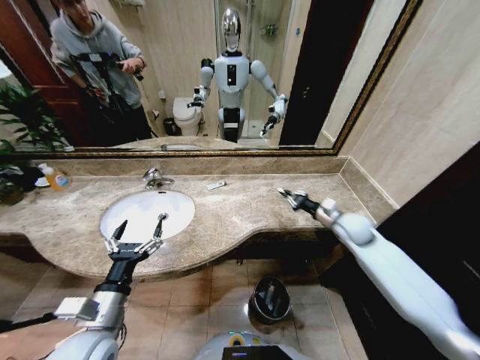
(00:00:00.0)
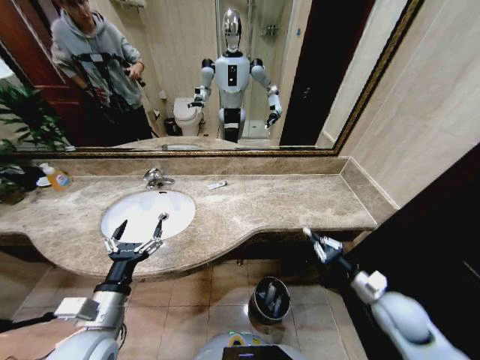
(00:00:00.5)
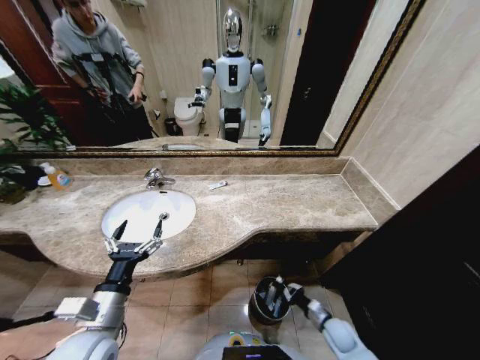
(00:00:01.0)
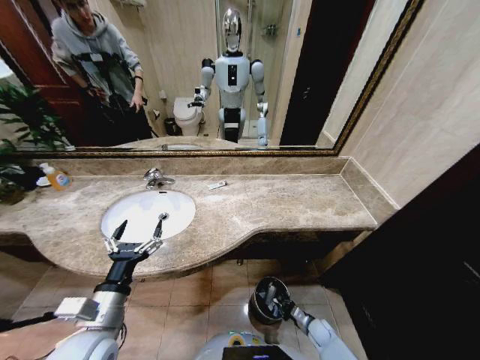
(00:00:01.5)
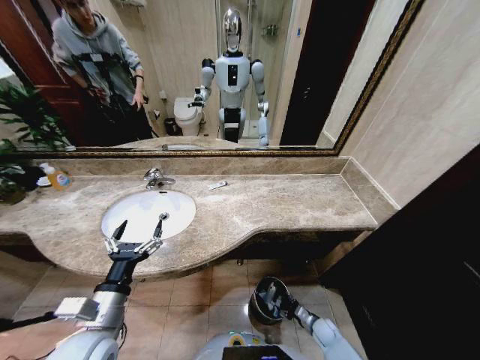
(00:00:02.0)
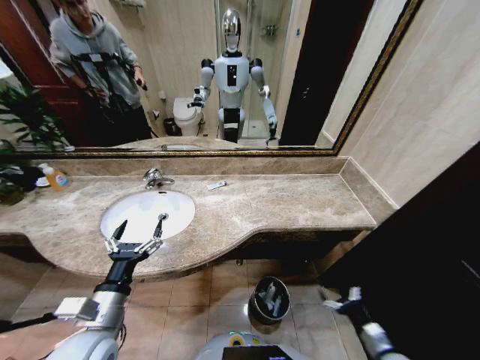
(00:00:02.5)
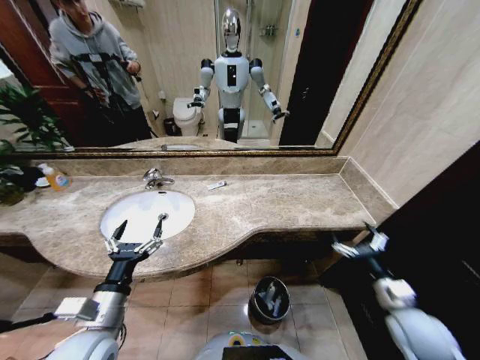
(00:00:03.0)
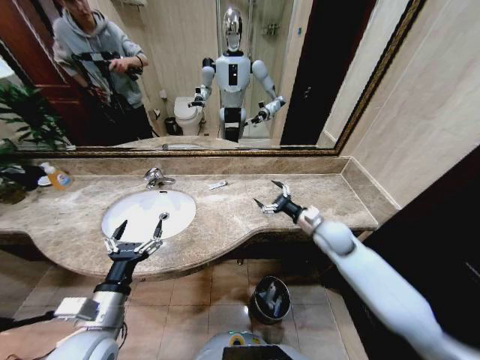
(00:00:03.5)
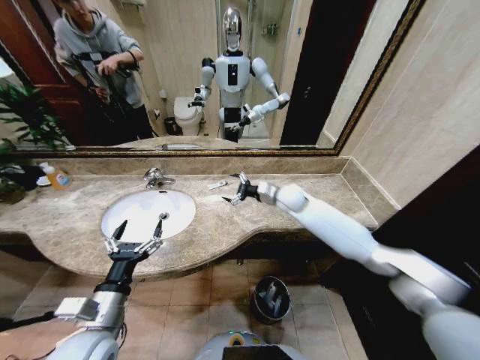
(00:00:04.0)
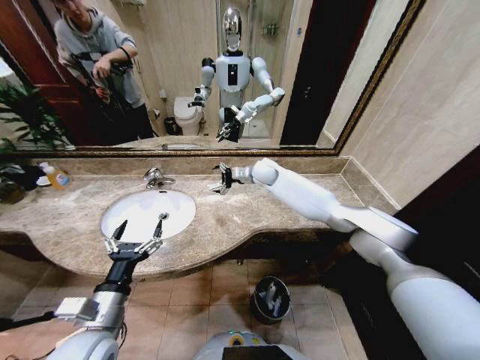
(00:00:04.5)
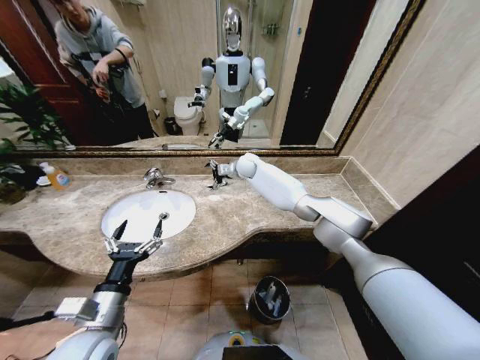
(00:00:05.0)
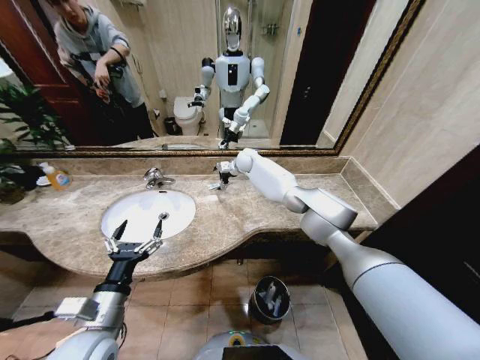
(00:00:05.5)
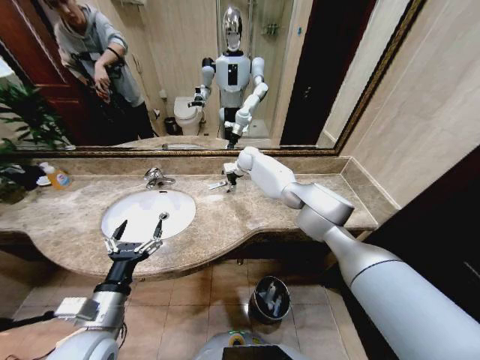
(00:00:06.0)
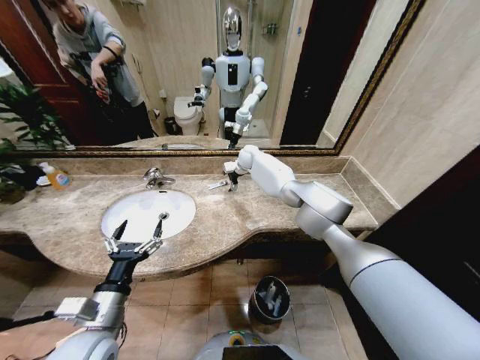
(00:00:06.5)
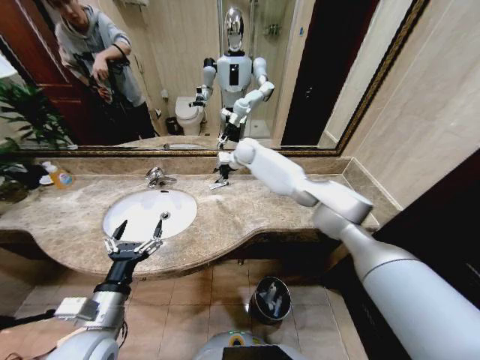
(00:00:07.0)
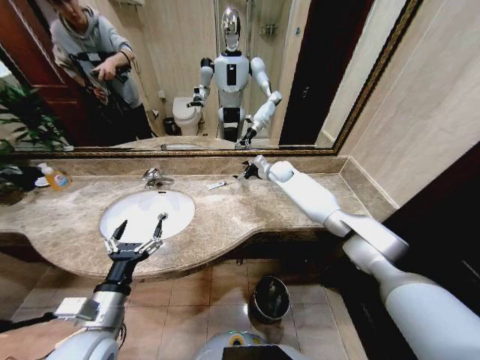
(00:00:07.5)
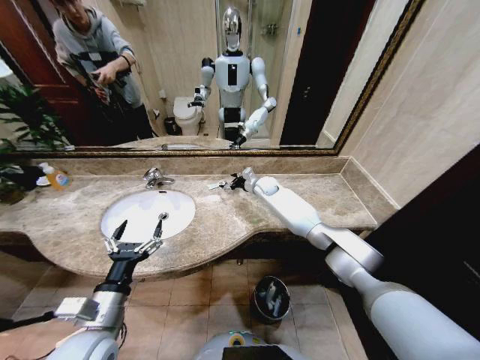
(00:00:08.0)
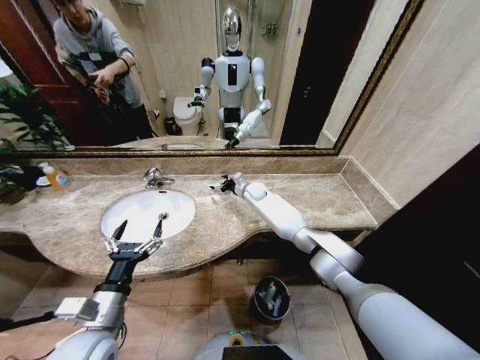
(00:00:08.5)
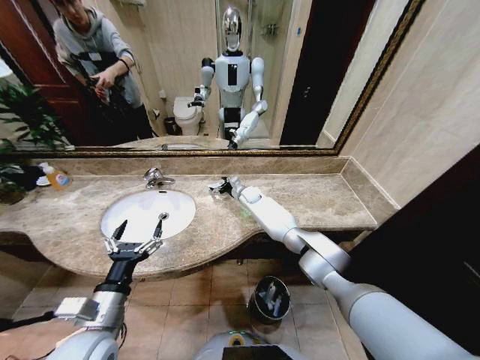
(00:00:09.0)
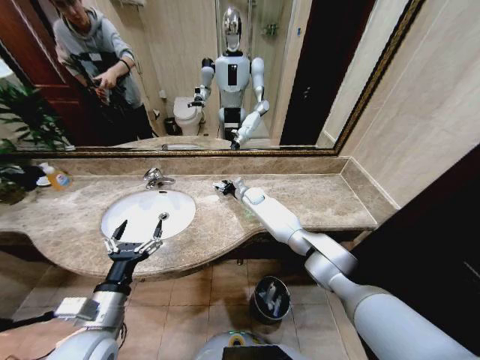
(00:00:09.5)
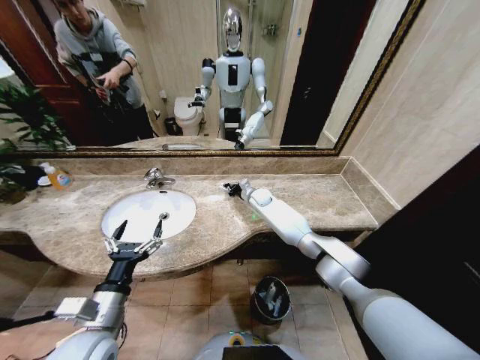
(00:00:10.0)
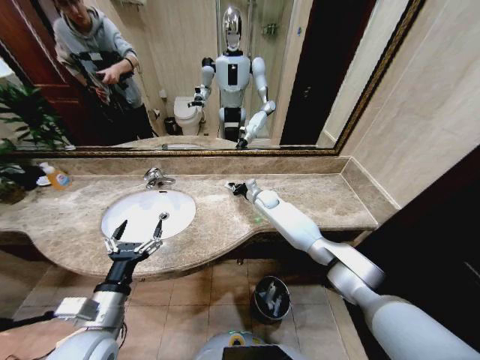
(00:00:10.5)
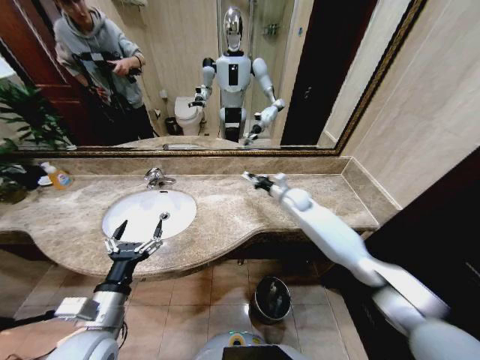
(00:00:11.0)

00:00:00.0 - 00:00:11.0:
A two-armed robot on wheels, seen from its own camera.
Task of the whole recording: Pick up the trash from the sink and place it in the trash bin.
00:00:00.0 - 00:00:02.0: The right gripper goes about 40 cm downward and backward, and opens.
00:00:02.0 - 00:00:03.5: The right gripper travels upward and forward by about 40 cm, and opens its fingers.
00:00:03.5 - 00:00:05.5: The right gripper heads forward and to the left, covering about 40 cm.
00:00:05.5 - 00:00:07.5: The right gripper travels to the right by approximately 15 cm.
00:00:07.5 - 00:00:09.0: The right gripper heads to the left and downward, covering about 15 cm.
00:00:09.0 - 00:00:11.0: The right gripper goes about 20 cm to the right and backward, and closes up.

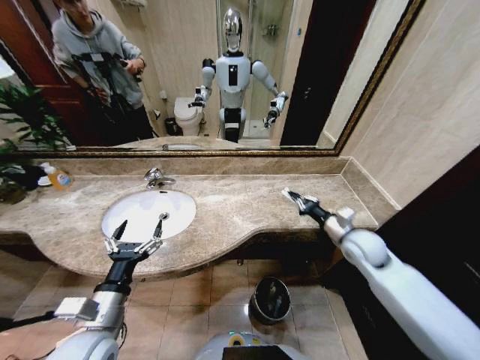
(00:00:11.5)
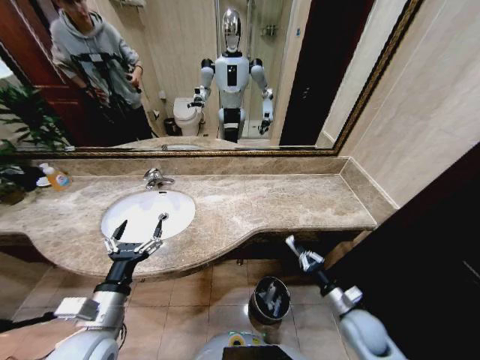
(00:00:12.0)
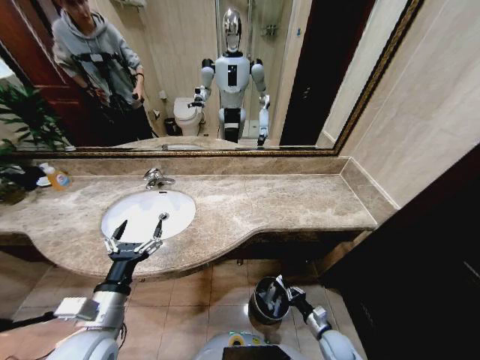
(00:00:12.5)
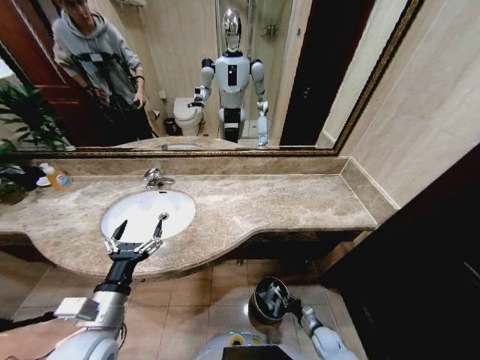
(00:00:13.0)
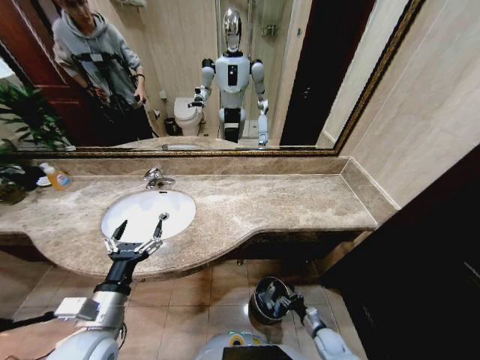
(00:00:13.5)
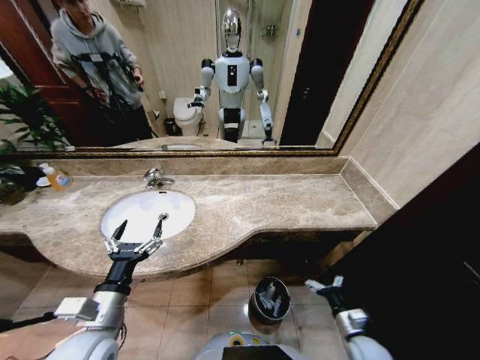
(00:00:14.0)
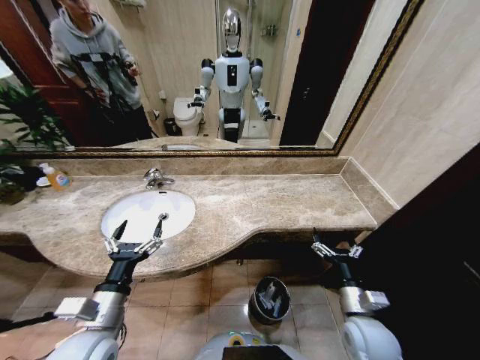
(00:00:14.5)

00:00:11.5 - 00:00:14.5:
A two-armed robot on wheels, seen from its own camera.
Task of the whole recording: Pick up the trash from the sink and place it in the trash bin.
00:00:11.5 - 00:00:13.0: The right gripper travels downward and backward by about 40 cm.
00:00:13.0 - 00:00:14.5: The right gripper moves upward, approximately 30 cm, and opens.

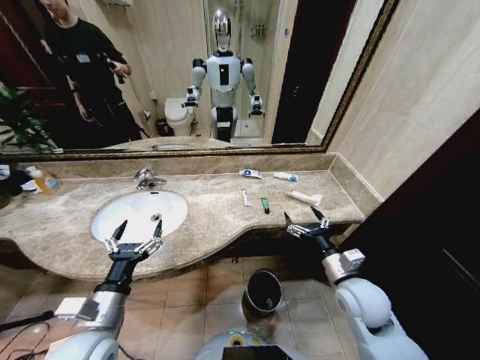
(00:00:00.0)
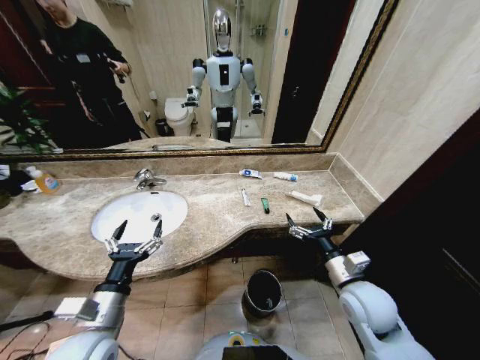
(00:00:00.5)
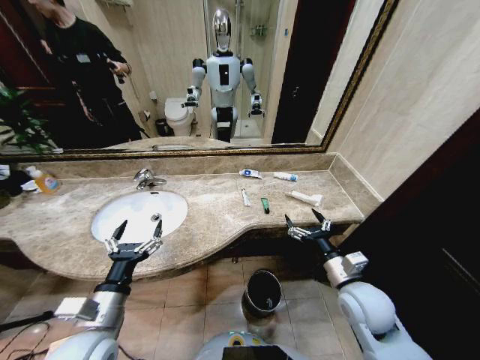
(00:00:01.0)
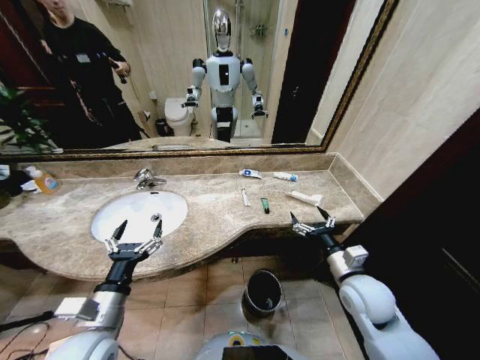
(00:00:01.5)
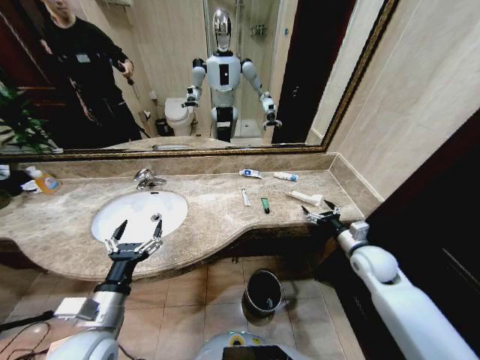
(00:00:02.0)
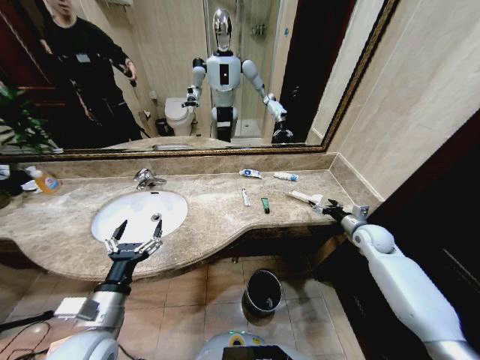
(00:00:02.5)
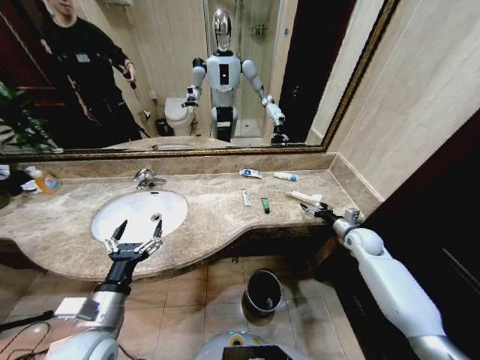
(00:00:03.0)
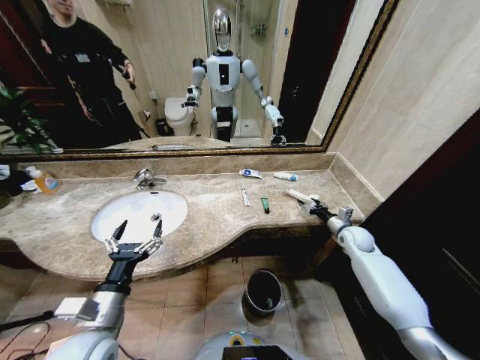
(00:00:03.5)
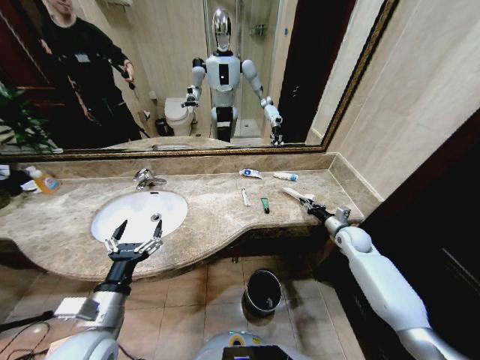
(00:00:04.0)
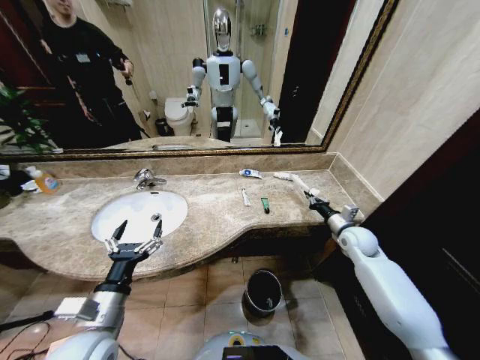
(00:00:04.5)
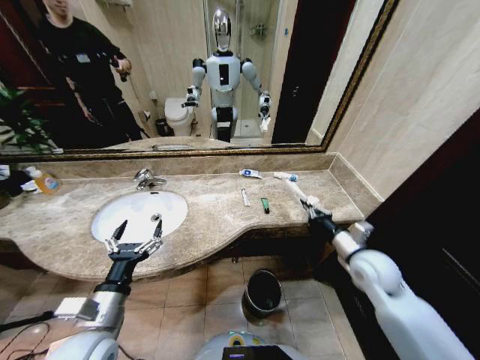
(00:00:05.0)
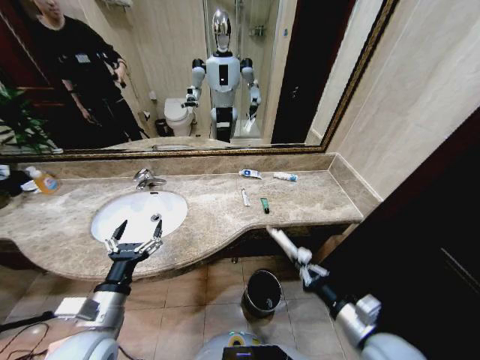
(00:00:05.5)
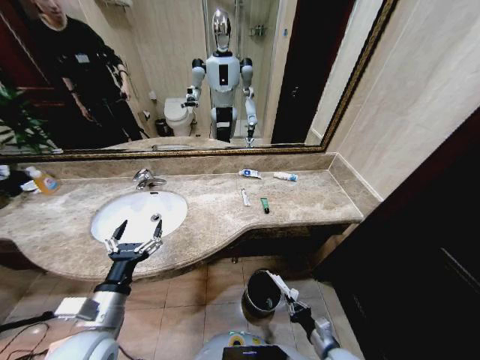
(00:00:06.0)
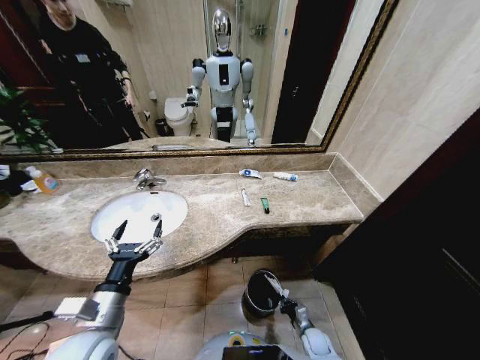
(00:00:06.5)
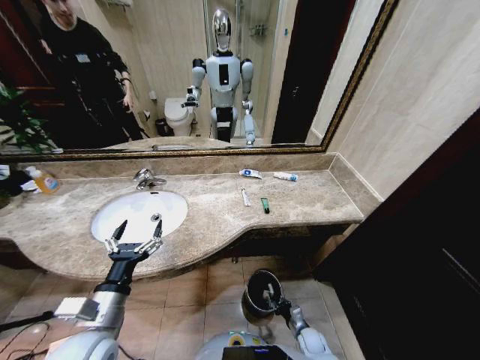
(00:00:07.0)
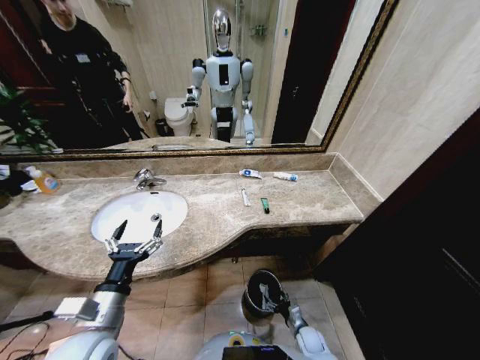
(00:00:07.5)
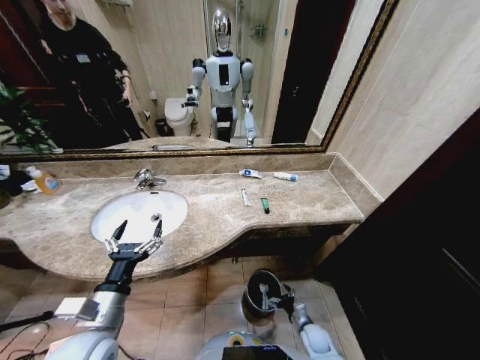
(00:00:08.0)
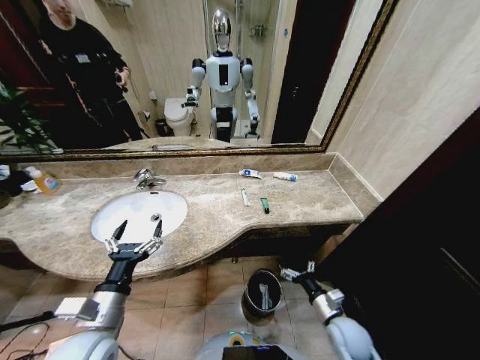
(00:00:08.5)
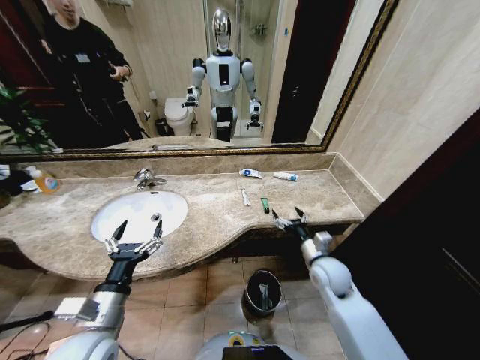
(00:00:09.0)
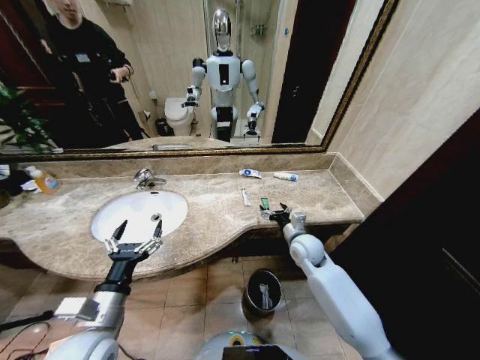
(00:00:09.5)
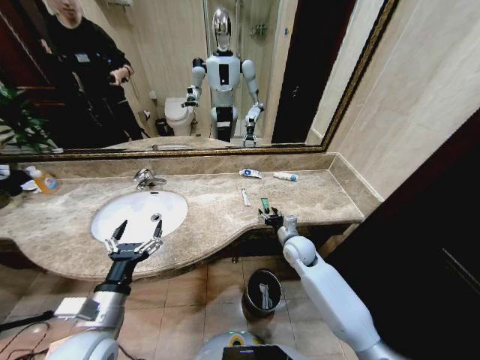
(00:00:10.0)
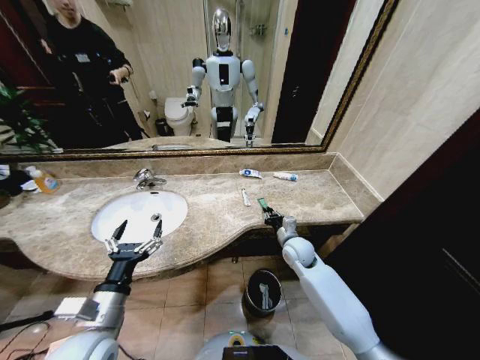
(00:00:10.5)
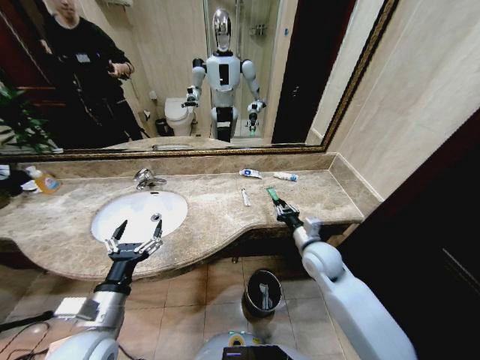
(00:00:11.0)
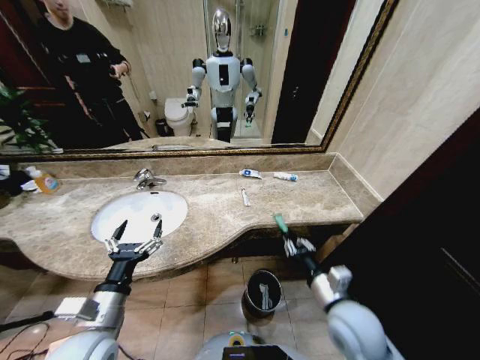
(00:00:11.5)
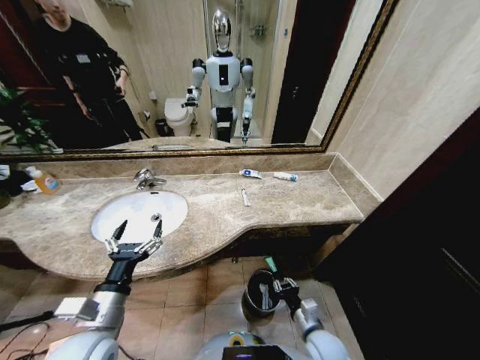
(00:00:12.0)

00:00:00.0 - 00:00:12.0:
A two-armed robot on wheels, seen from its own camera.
Task of the whole recording: Pick up the trash from the sink and place it in the trash bin.
00:00:02.0 - 00:00:04.0: The right gripper is displaced forward by approximately 10 cm, and closes.
00:00:04.0 - 00:00:06.0: The right gripper shifts roughly 35 cm backward, downward and to the left.
00:00:06.0 - 00:00:08.0: The right gripper heads downward and forward, covering roughly 15 cm, and opens.
00:00:08.0 - 00:00:10.0: The right gripper moves upward and forward, roughly 35 cm.
00:00:10.0 - 00:00:12.0: The right gripper heads backward, covering approximately 25 cm, and closes.
